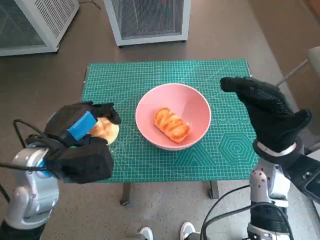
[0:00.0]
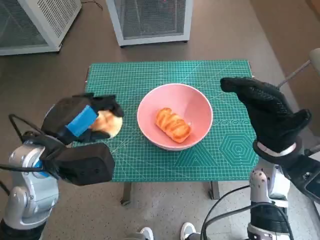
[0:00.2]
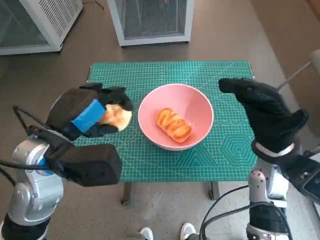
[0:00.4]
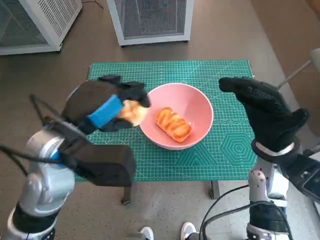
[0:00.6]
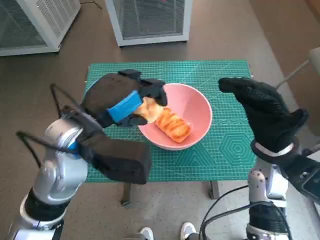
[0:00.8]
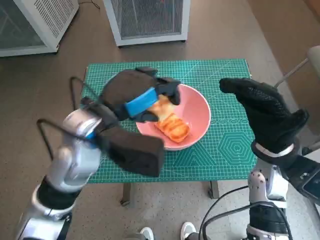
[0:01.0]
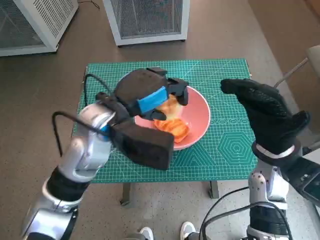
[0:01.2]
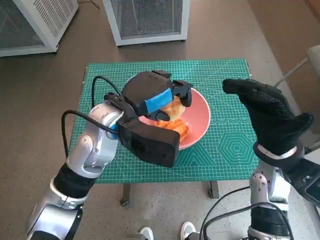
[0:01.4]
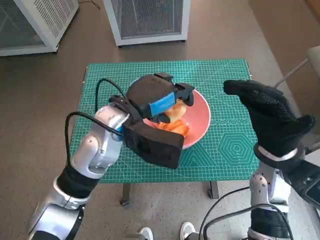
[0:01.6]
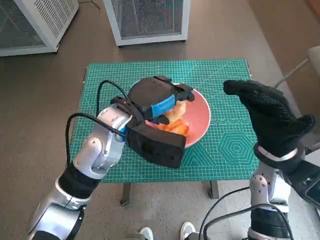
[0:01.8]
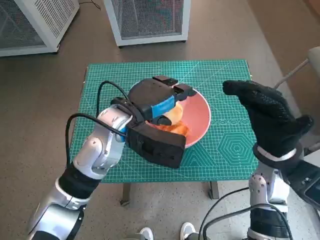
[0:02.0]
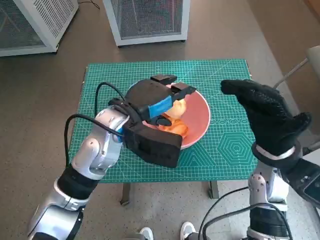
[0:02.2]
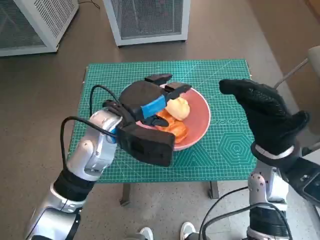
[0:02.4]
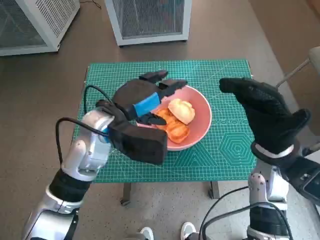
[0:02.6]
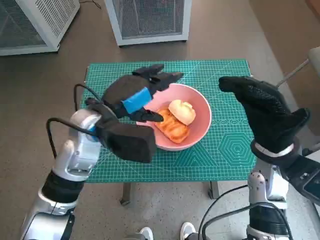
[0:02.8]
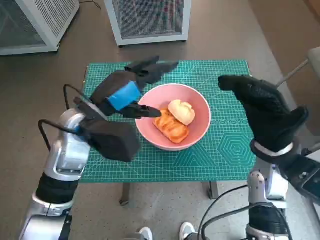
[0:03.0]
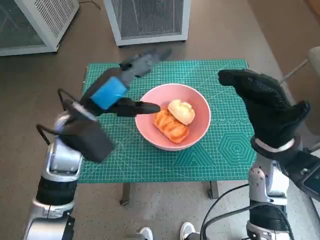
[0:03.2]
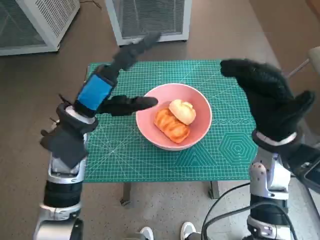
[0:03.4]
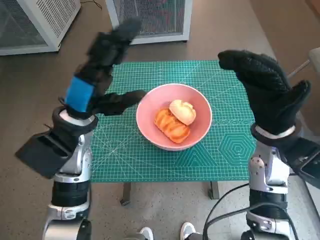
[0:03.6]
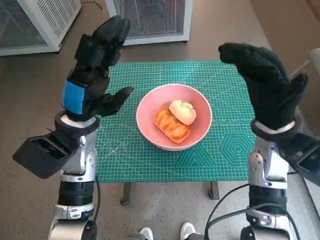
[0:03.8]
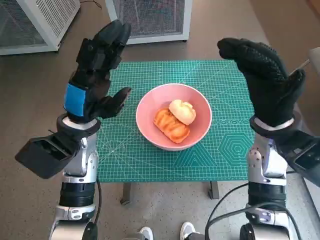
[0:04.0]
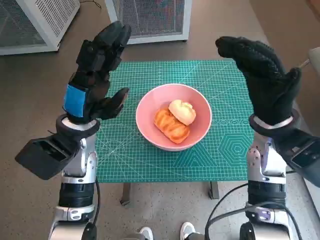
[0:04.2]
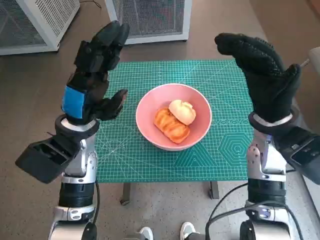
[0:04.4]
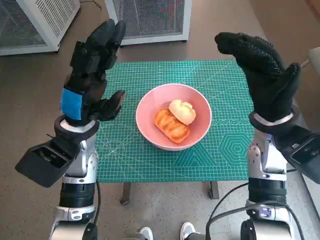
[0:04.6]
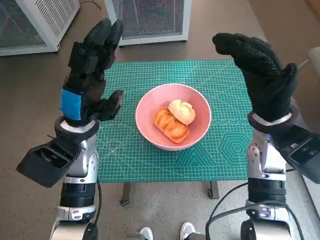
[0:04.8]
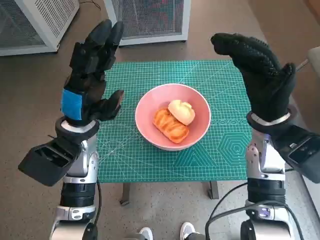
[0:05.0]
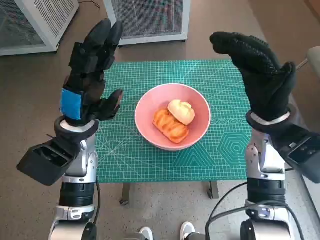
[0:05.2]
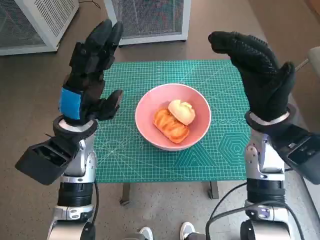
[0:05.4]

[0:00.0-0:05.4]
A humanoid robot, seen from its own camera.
Task of the whole recording: Push the bowl into the center of the table and put the bread into the bowl.
Step, 0:00.0 to 0:01.8: Place the round bread in pink bowl with left hand.
0:00.0 to 0:01.4: The left hand is displaced to the right and forward by some 10 cm.
0:01.4 to 0:02.8: The hands make only small movements.
0:02.8 to 0:04.0: The left hand ends up some 5 cm from where it was.
0:04.0 to 0:05.4: The hands stay close to where they were, moving slightly.
